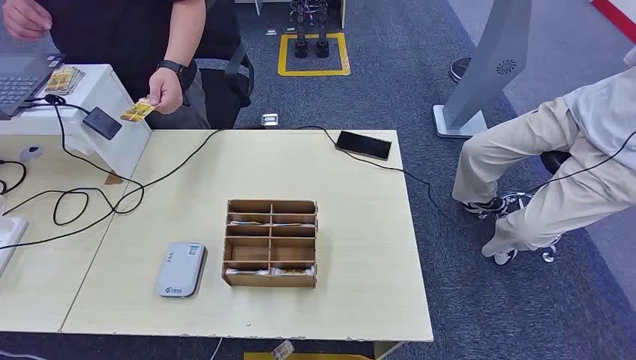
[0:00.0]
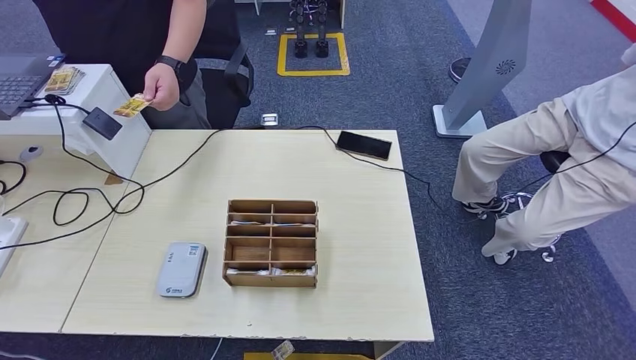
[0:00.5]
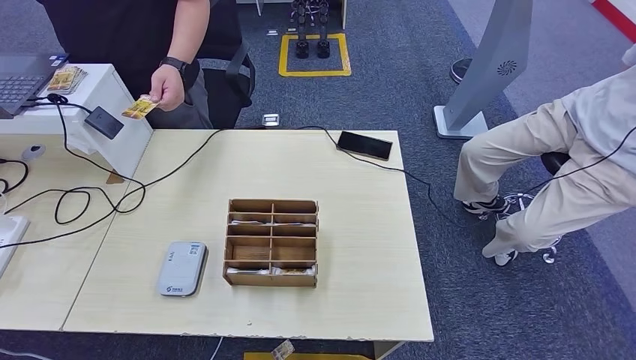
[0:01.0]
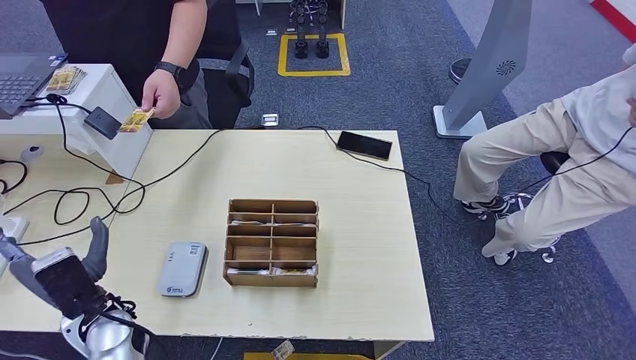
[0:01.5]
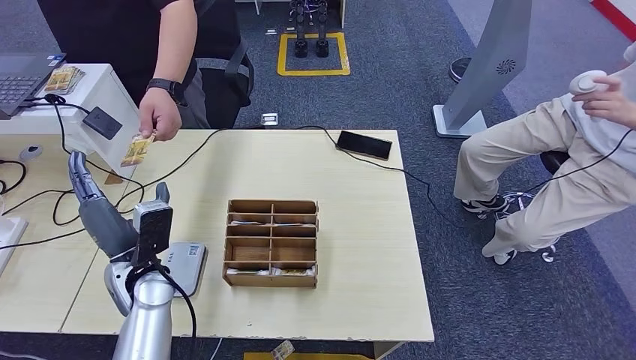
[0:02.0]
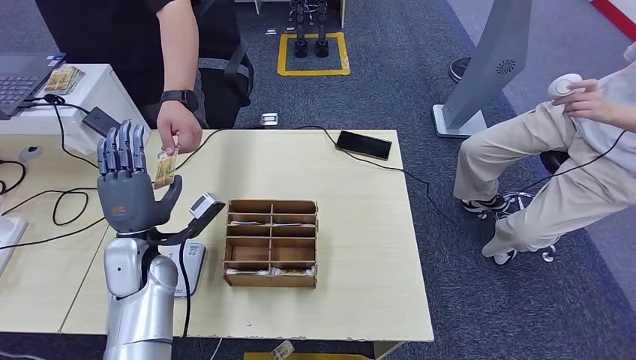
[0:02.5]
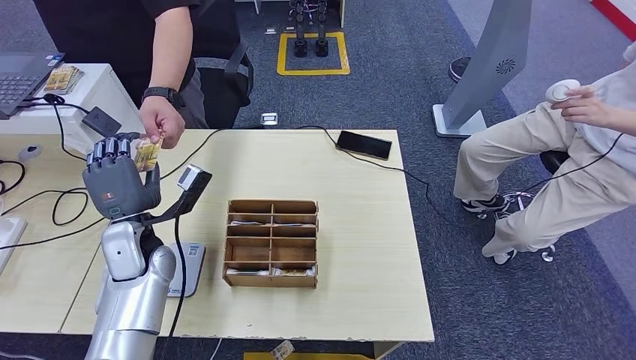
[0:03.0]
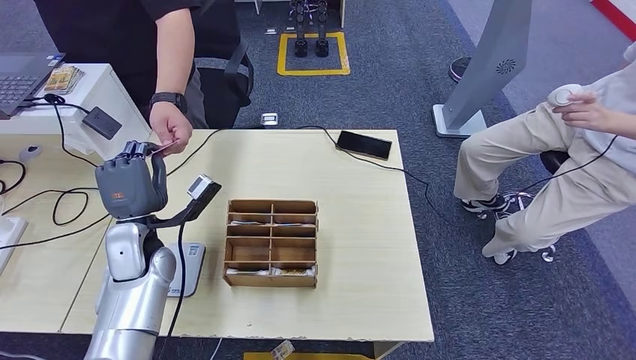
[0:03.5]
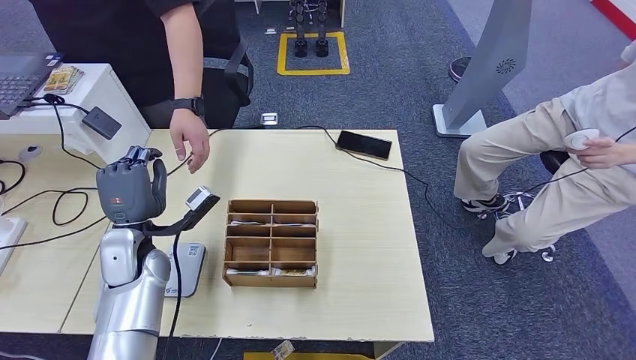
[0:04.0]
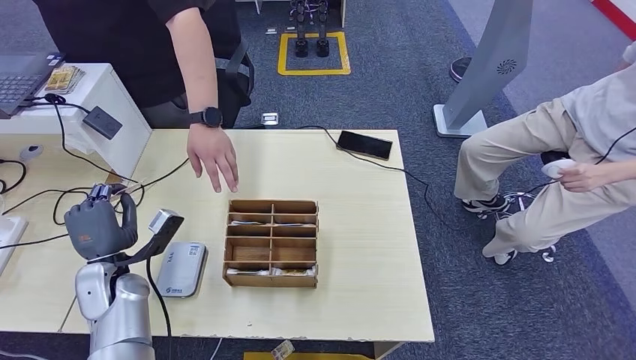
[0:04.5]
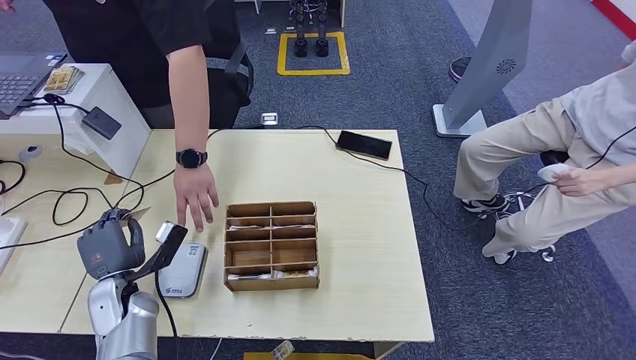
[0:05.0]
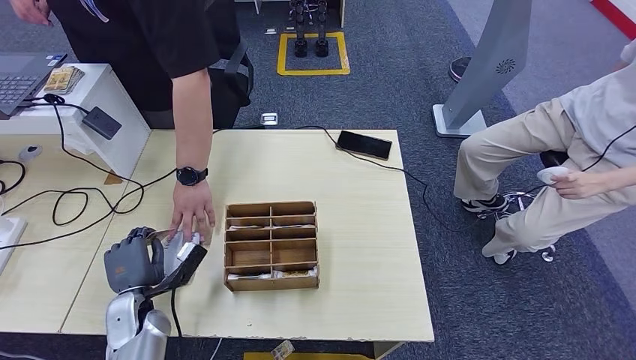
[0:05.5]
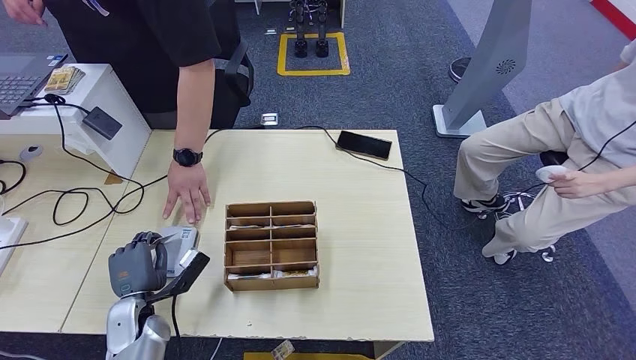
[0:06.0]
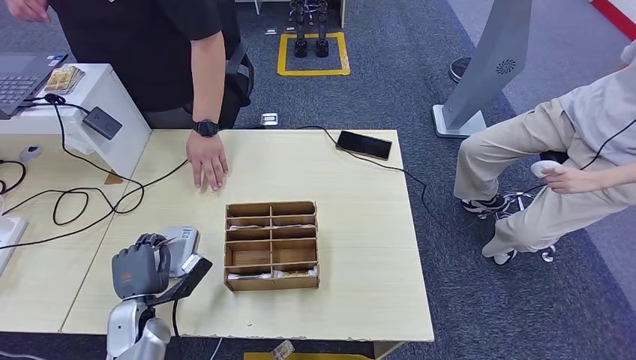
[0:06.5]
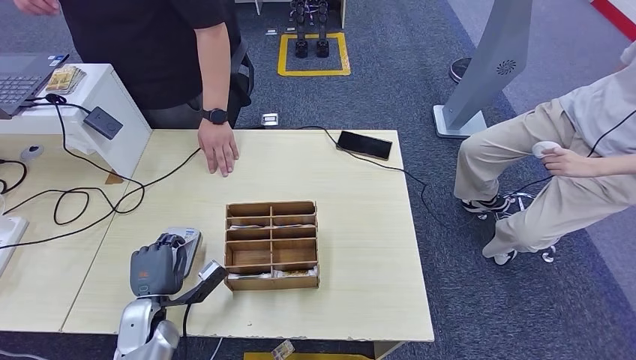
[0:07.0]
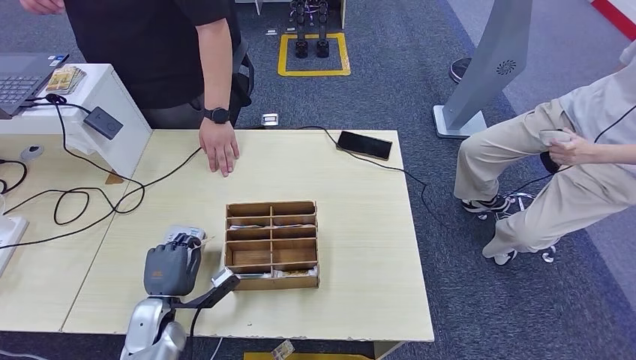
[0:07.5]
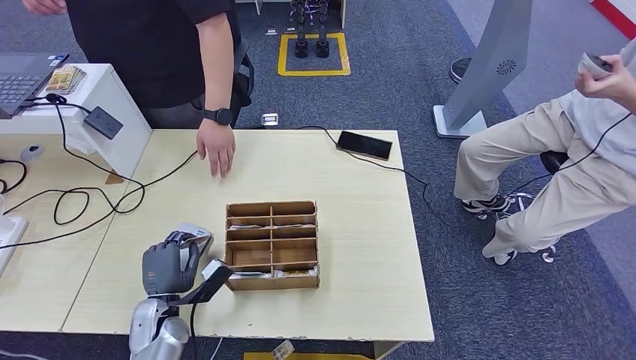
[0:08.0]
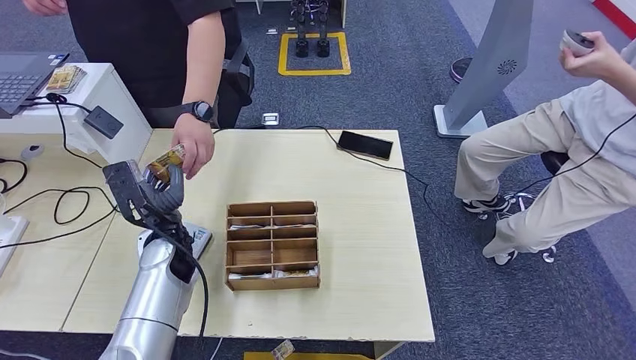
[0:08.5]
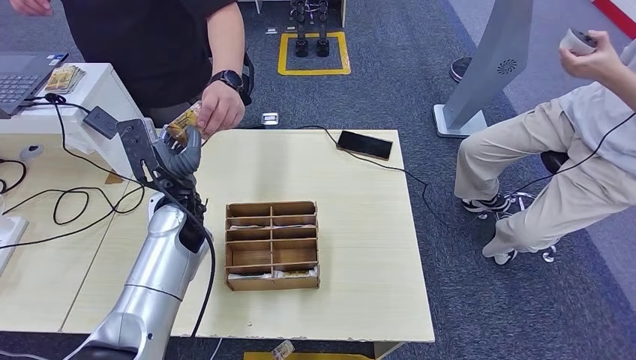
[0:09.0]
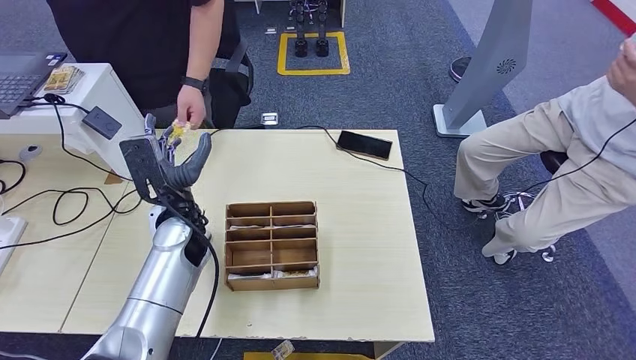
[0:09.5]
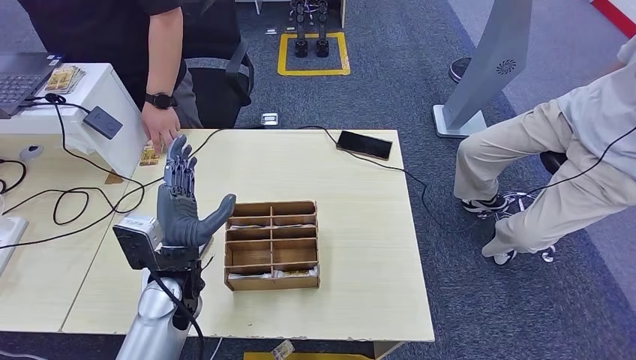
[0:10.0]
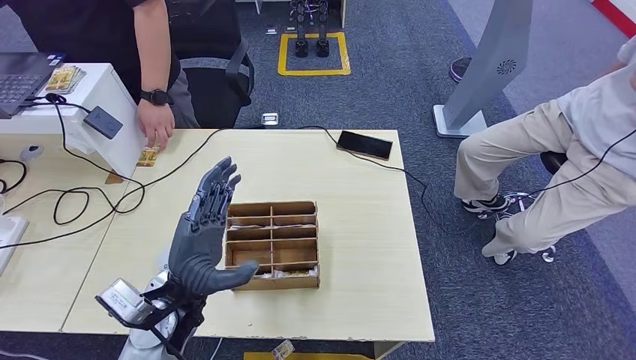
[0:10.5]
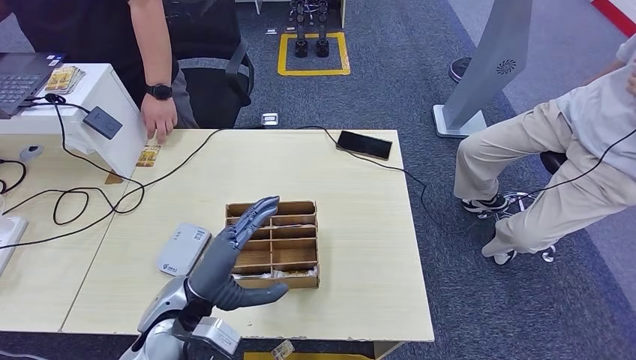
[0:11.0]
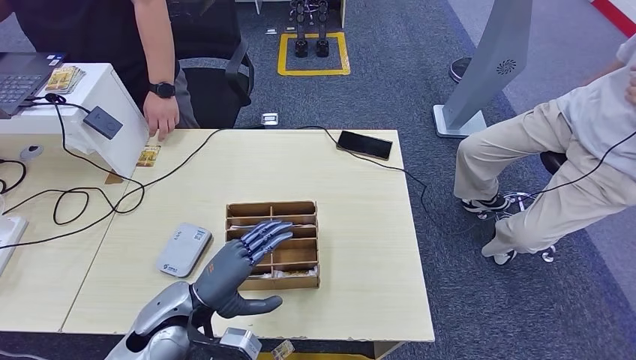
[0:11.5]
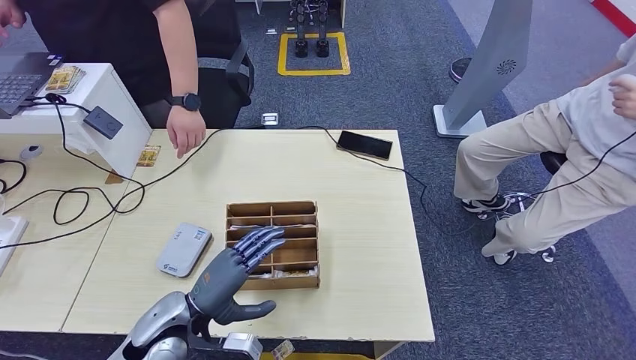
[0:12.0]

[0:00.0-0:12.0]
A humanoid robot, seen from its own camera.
Step, 0:00.0 to 0:04.0: Take the ID card from the person's hand.
Step, 0:04.5 to 0:07.5: Place the ID card on the card reader.
Step, 0:08.0 to 0:09.0: Hand the ID card to the person.
0:02.0 to 0:04.0: The left hand shifts by about 5 cm.
0:04.0 to 0:06.0: The left hand goes roughly 15 cm downward and backward.
0:06.0 to 0:08.0: The hands stay close to where they were, moving slightly.
0:08.0 to 0:10.0: The left hand travels upward and to the right by some 15 cm.
0:10.0 to 0:12.0: The left hand travels backward and downward by some 10 cm.

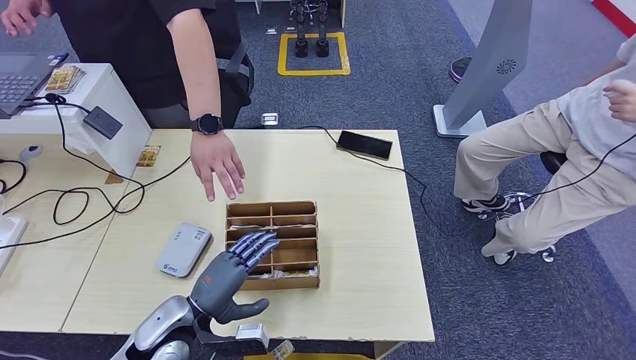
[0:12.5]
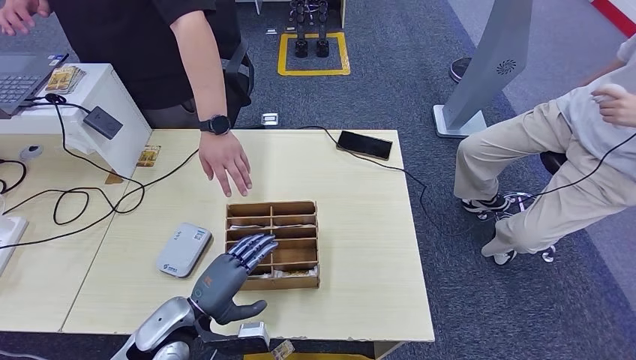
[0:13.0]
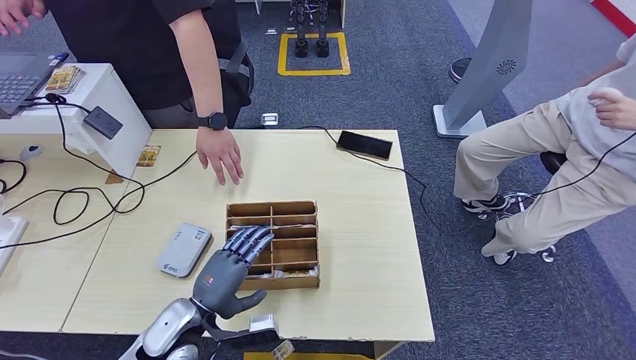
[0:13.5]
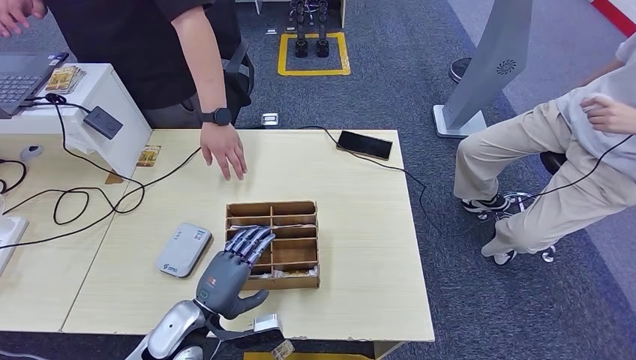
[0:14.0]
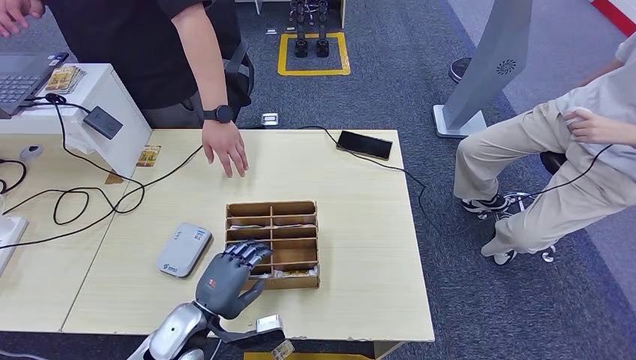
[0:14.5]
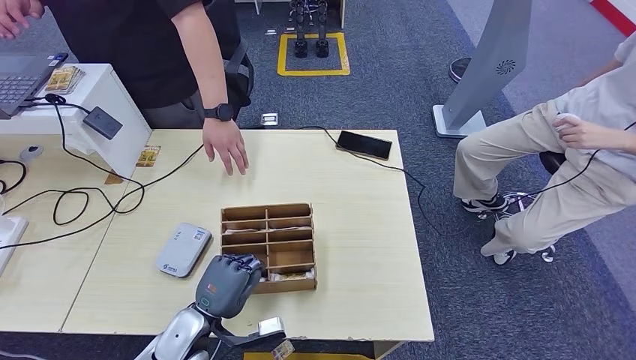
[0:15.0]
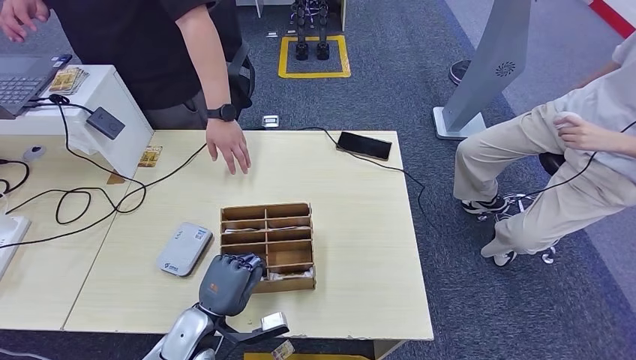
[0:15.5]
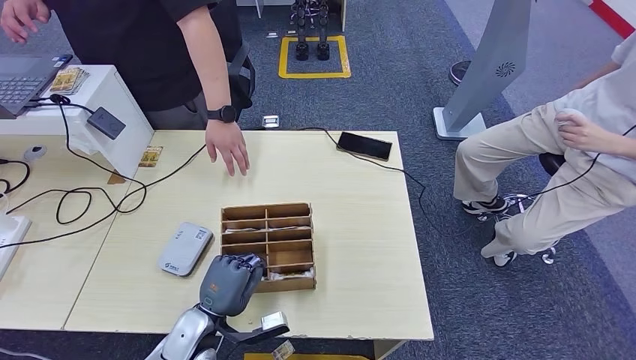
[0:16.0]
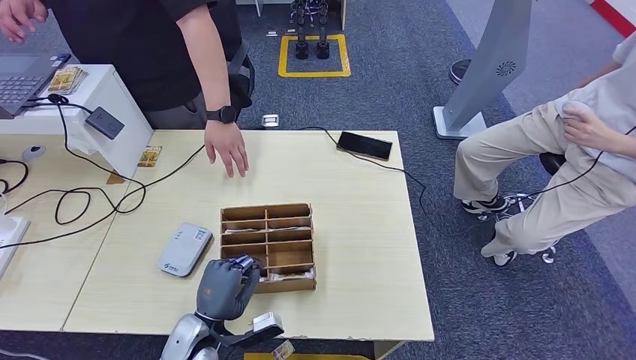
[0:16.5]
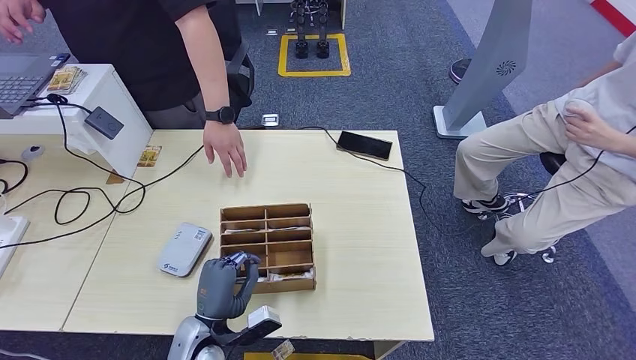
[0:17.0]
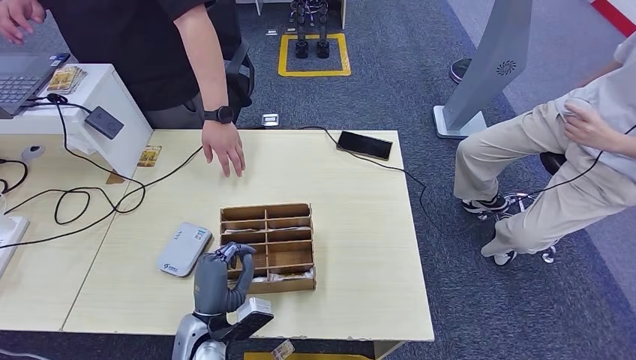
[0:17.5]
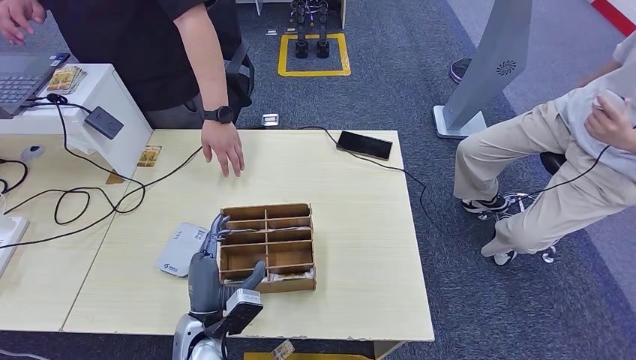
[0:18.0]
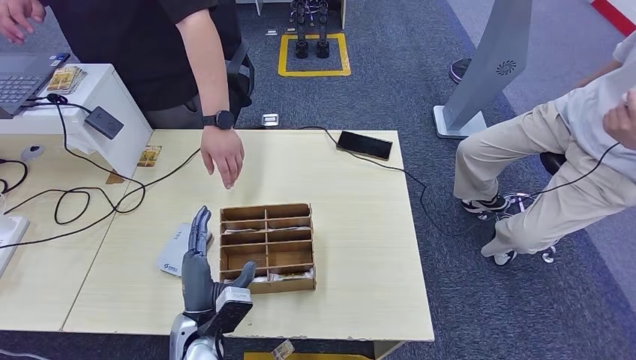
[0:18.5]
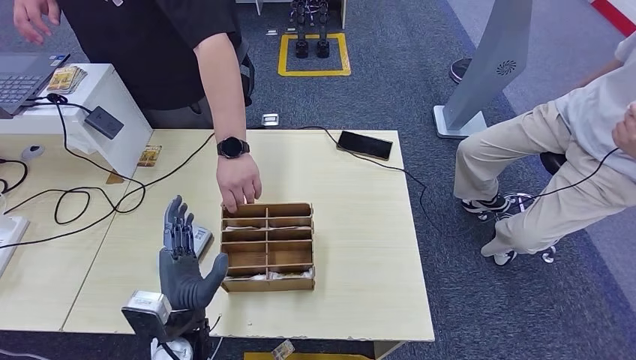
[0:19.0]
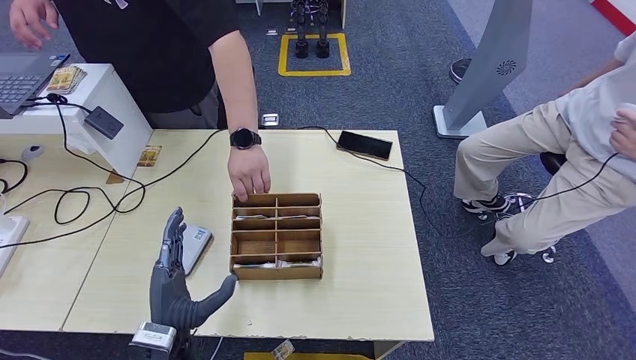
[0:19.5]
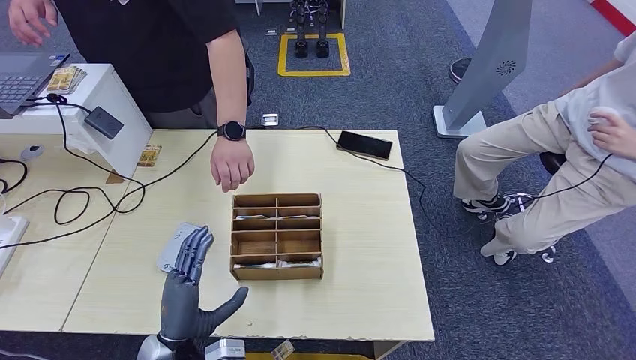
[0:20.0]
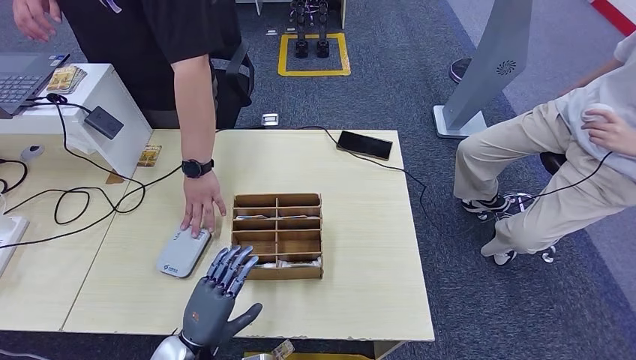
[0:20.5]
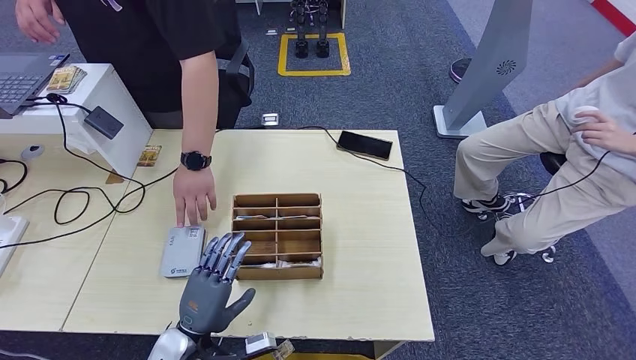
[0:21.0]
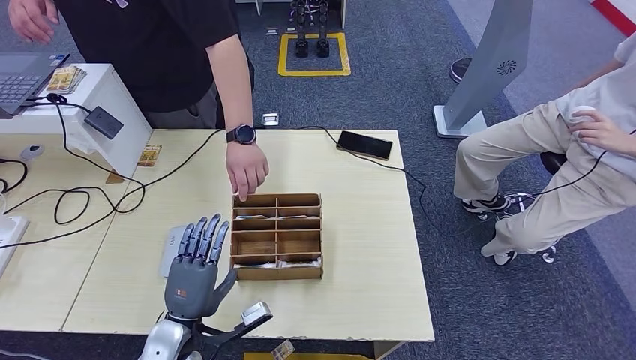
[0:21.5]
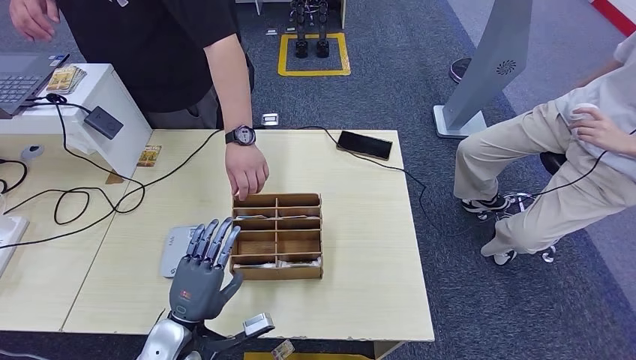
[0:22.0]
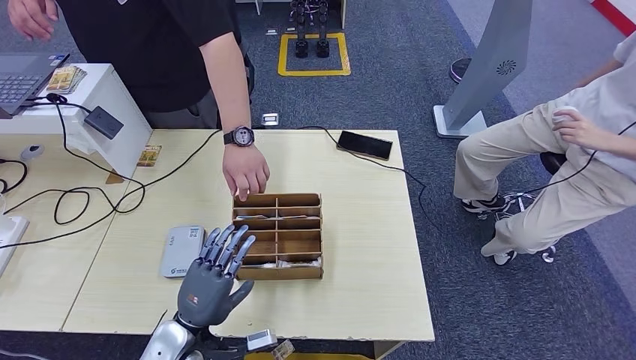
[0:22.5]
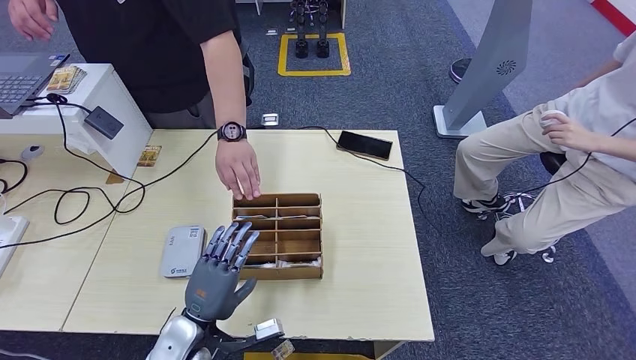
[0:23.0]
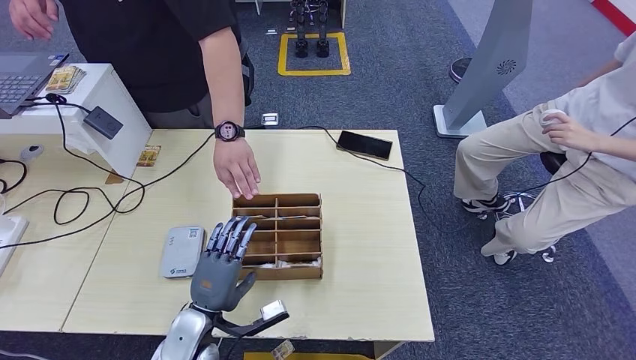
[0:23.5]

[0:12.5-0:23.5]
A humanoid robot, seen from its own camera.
0:12.5 to 0:14.5: There are only small adjustments of the hands.
0:14.5 to 0:16.0: There are only small adjustments of the hands.
0:18.0 to 0:20.0: The left hand changes place by some 5 cm.
0:21.5 to 0:23.5: There are only small adjustments of the hands.
